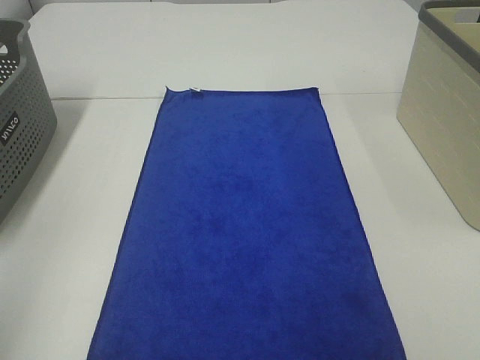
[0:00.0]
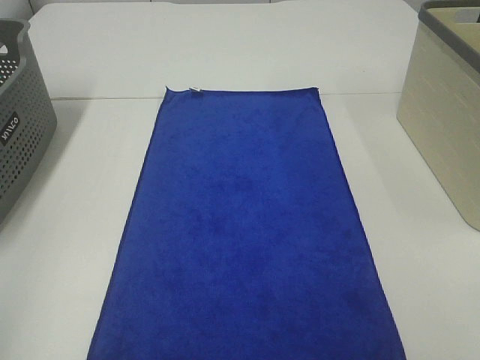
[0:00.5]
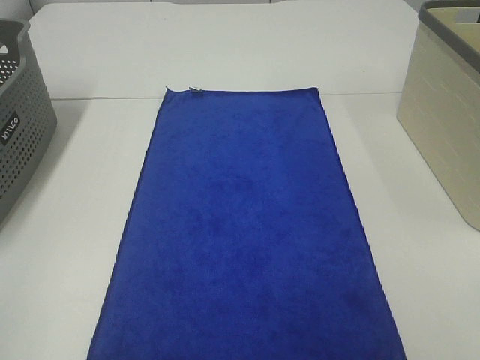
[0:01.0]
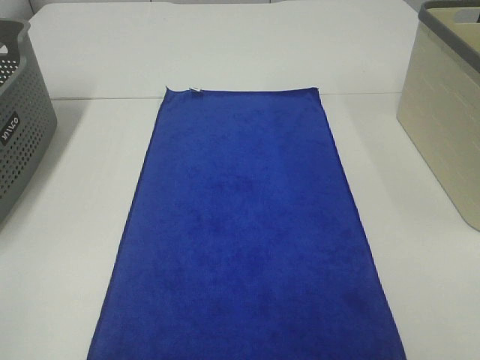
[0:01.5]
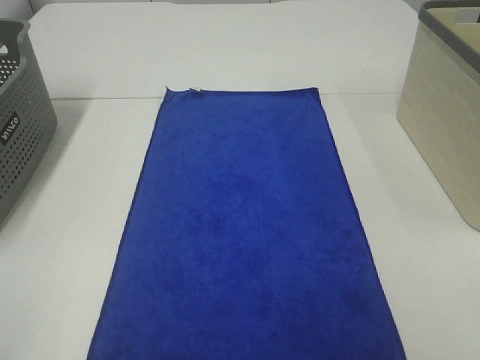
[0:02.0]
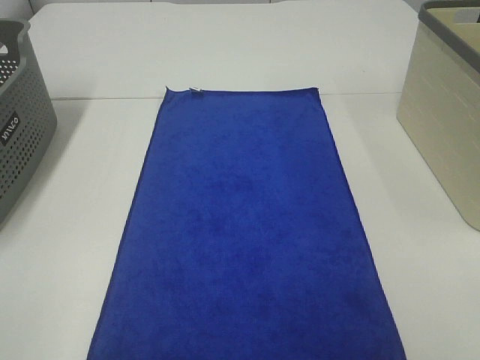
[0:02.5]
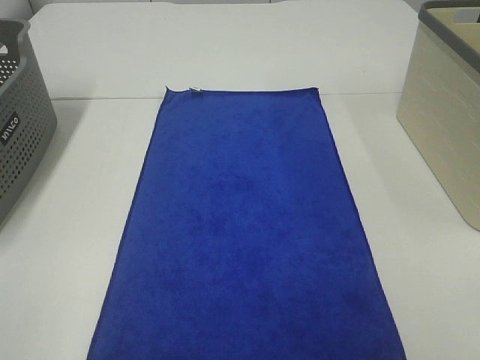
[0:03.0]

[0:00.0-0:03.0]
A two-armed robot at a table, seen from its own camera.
Task of the whole recording: Remove the towel and place it.
0:00.0 to 0:01.5: The left gripper goes some 10 cm backward and downward.

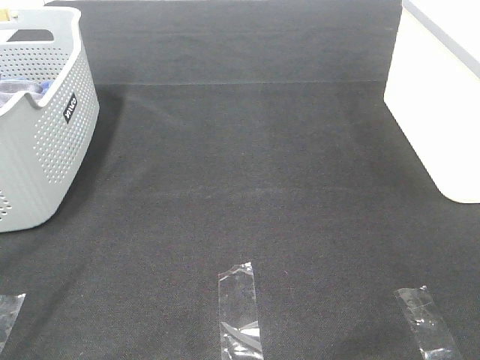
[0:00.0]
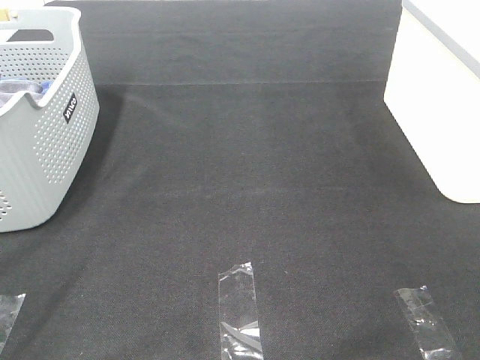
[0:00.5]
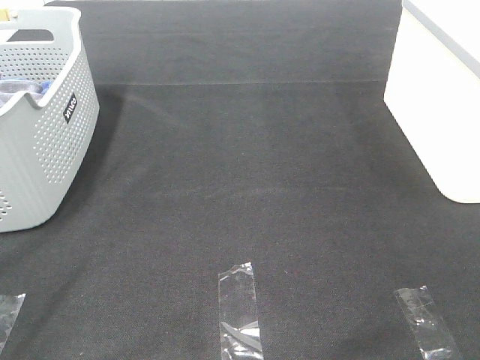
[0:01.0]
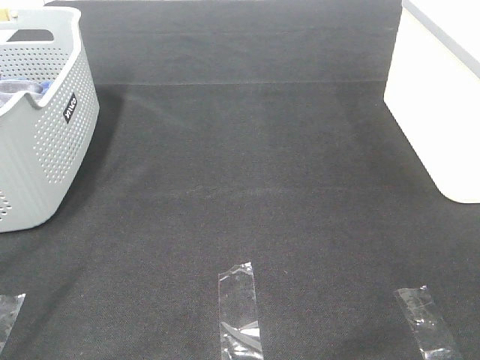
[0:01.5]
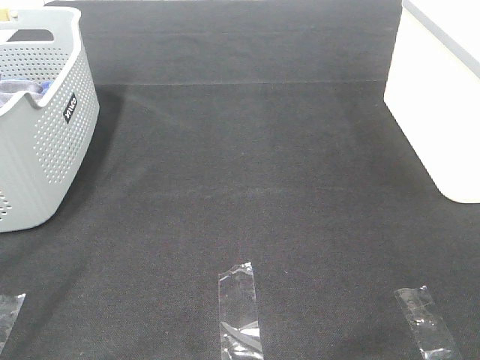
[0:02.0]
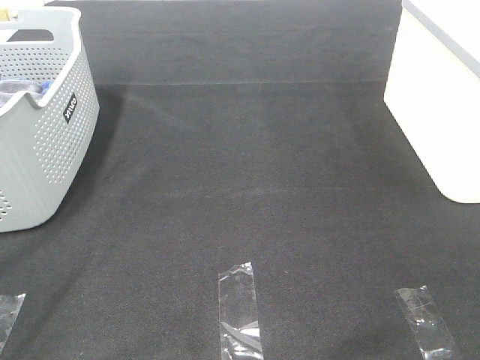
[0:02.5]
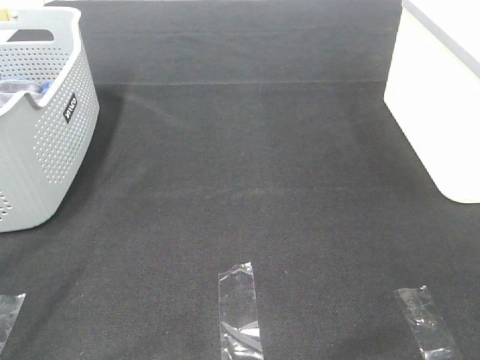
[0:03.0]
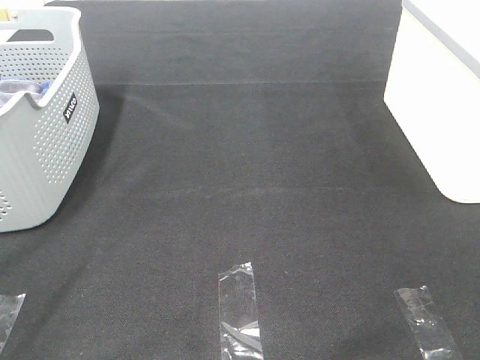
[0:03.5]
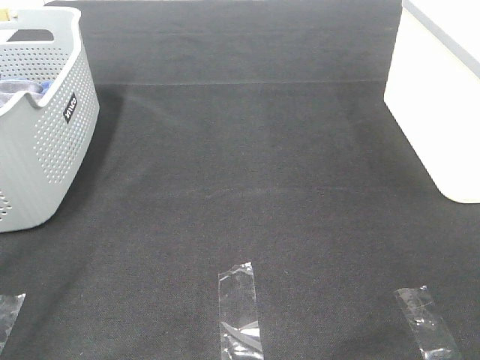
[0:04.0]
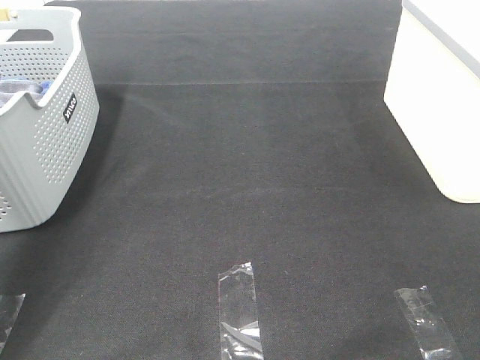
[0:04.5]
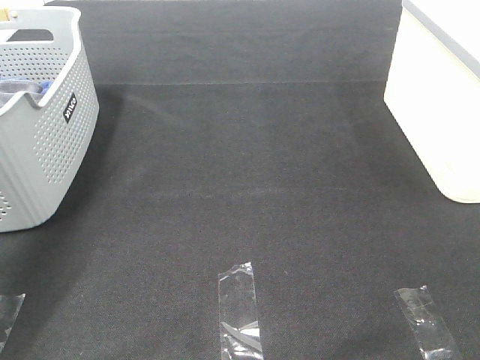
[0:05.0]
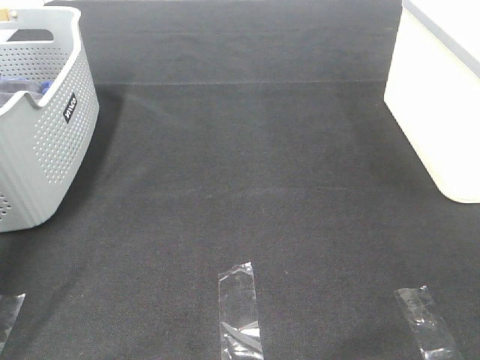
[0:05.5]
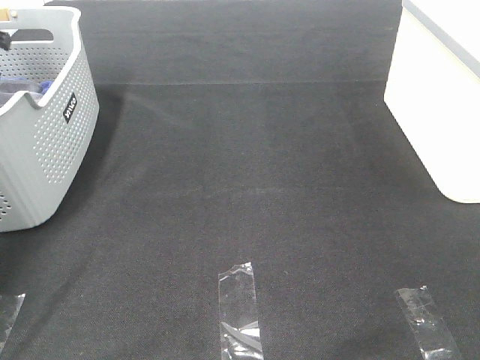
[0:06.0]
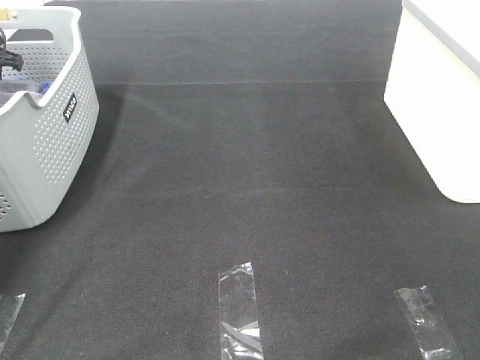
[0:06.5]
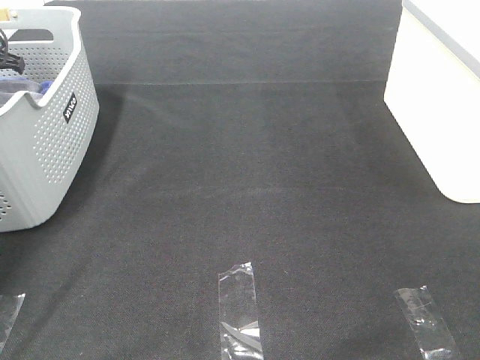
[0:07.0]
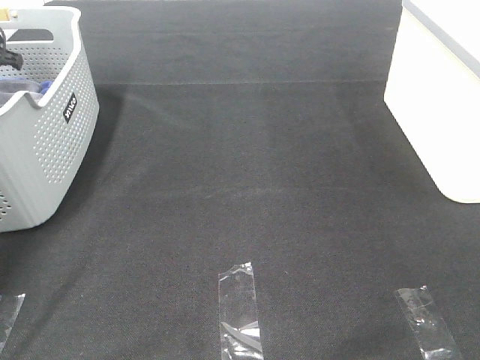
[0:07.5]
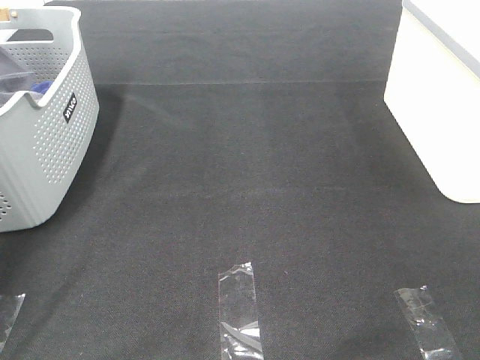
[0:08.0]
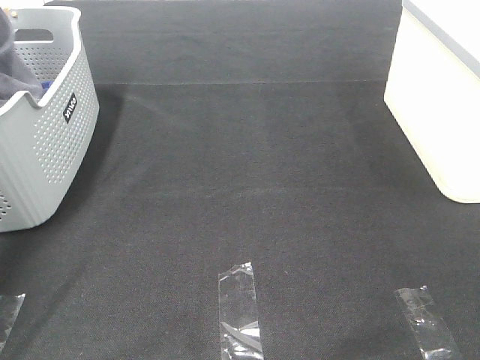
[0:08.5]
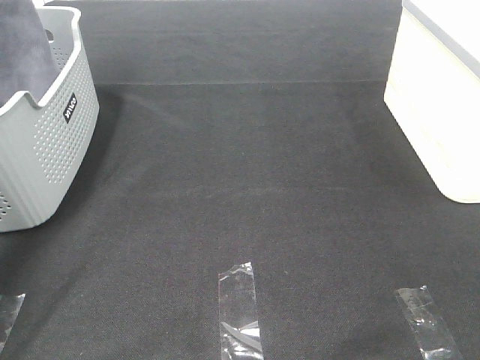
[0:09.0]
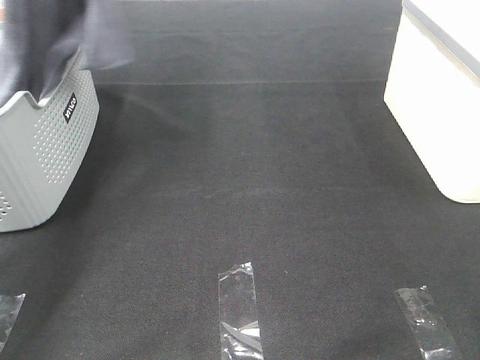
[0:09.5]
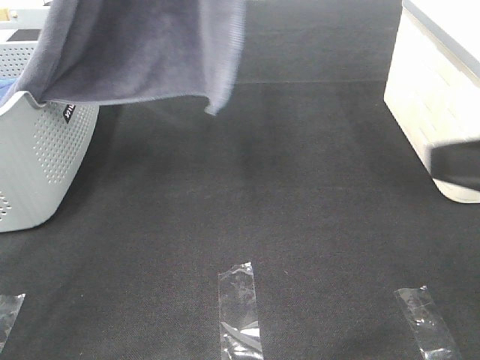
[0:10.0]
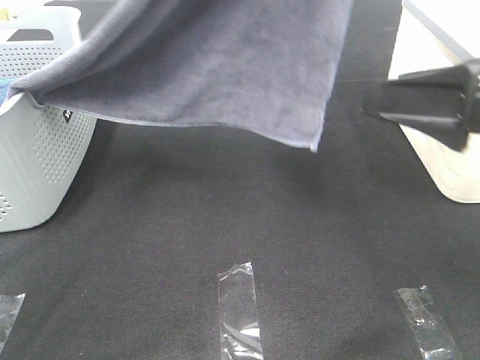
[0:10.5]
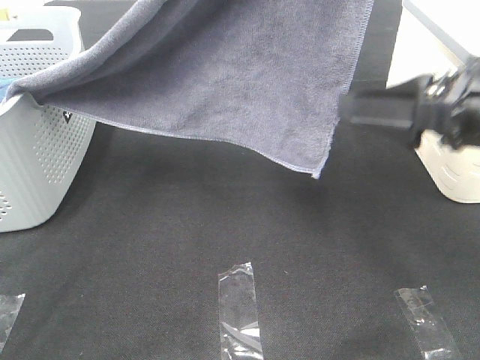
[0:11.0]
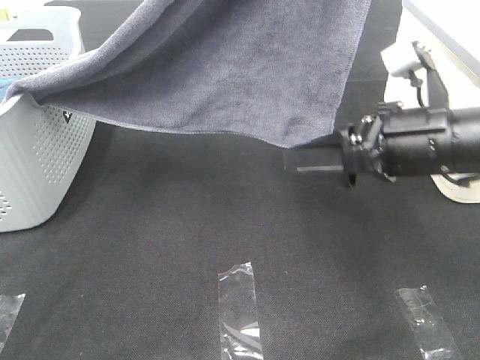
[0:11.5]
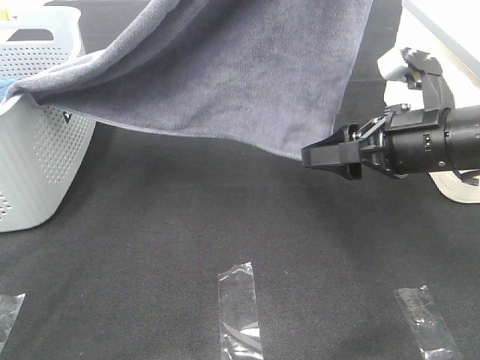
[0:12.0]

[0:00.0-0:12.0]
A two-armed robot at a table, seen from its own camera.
Task of the whole recording: Remove the towel and place it.
Step, 0:08.5 to 0:11.5: Right hand: grab a corner of the grey towel and straighten it.
0:00.0 to 0:02.0: Both grippers stay about where they are.
0:04.0 to 0:06.0: The left gripper shifts some 50 cm forward.
0:08.0 to 0:10.0: The left gripper moves to the right, upward and backward, some 40 cm. The right gripper goes some 15 cm forward.
0:10.0 to 0:12.0: The left gripper is displaced to the right by approximately 10 cm. The right gripper heads forward and downward, covering about 20 cm.

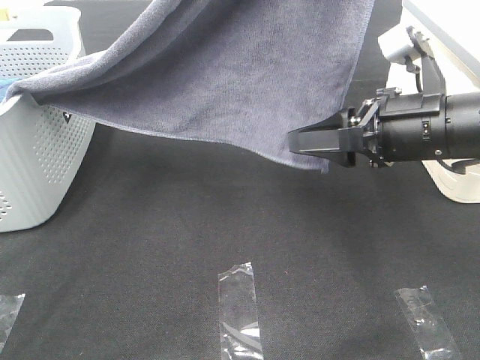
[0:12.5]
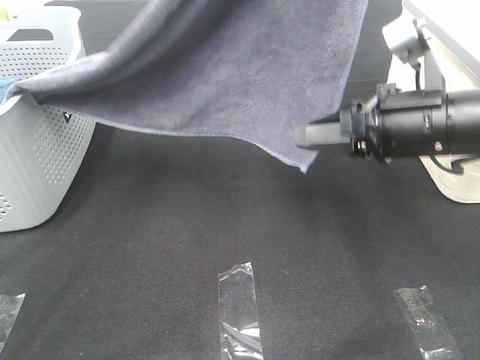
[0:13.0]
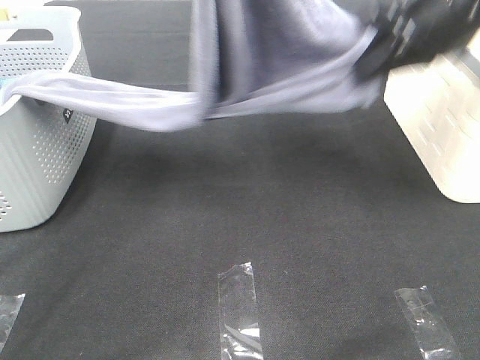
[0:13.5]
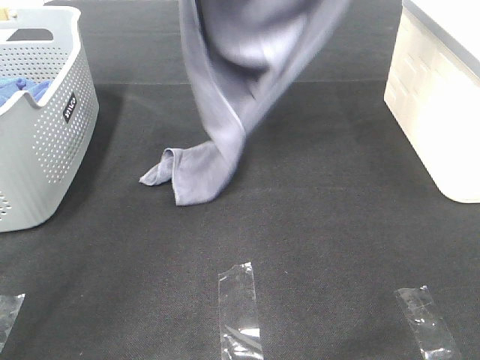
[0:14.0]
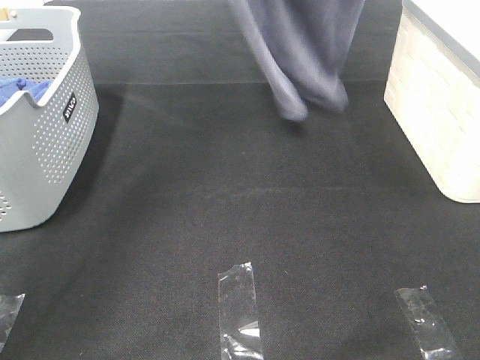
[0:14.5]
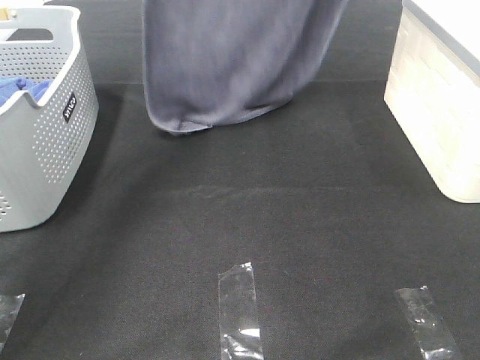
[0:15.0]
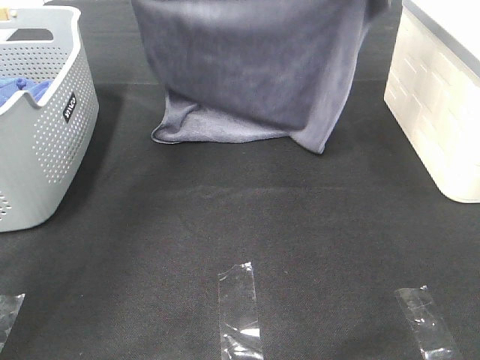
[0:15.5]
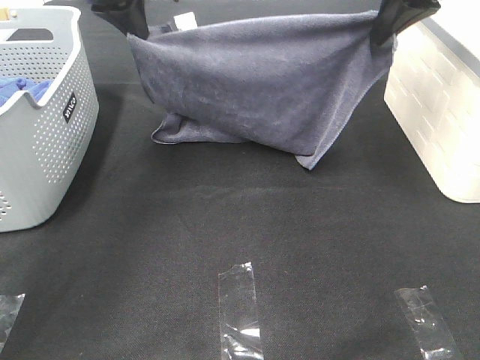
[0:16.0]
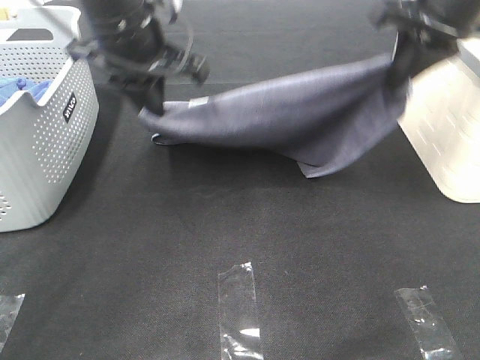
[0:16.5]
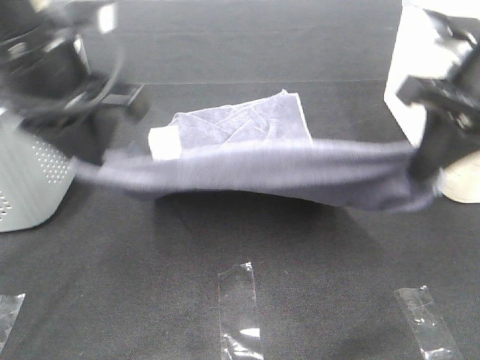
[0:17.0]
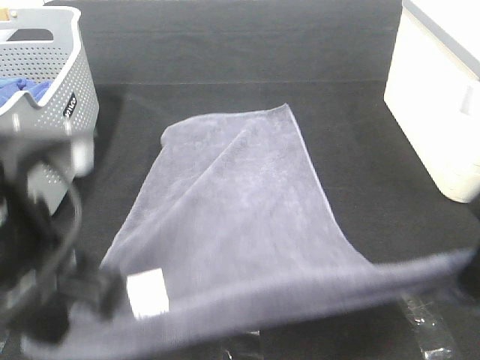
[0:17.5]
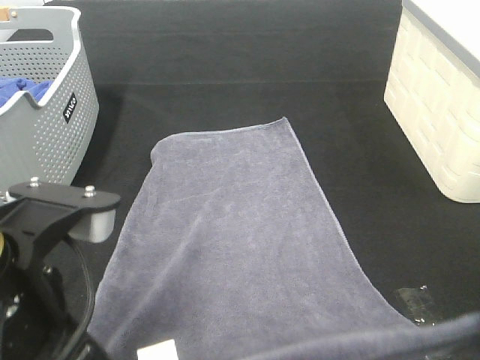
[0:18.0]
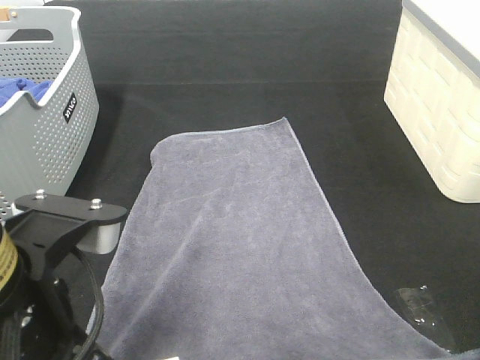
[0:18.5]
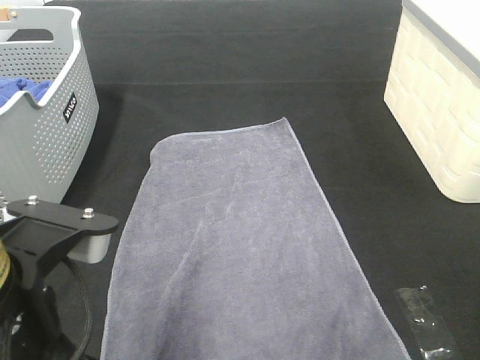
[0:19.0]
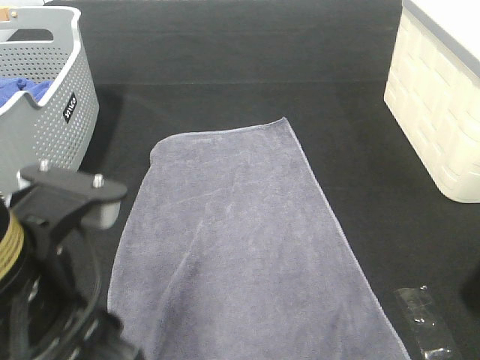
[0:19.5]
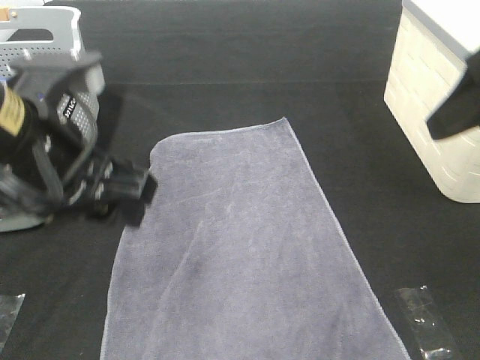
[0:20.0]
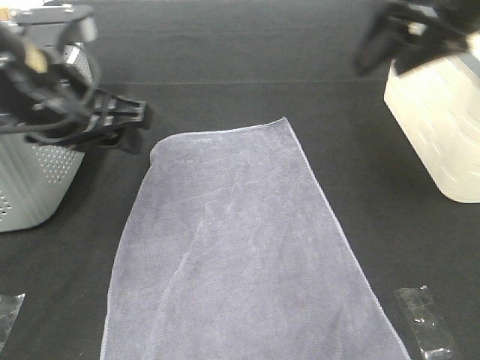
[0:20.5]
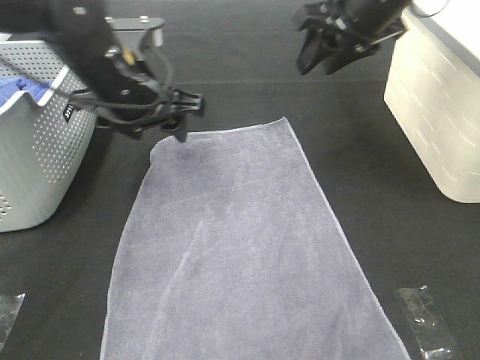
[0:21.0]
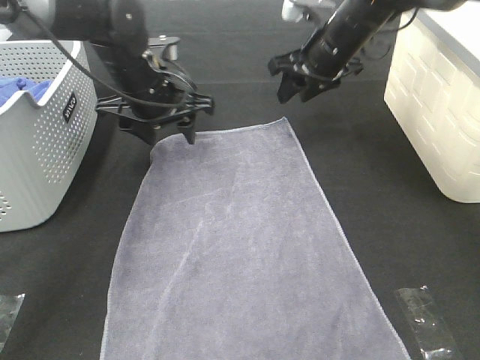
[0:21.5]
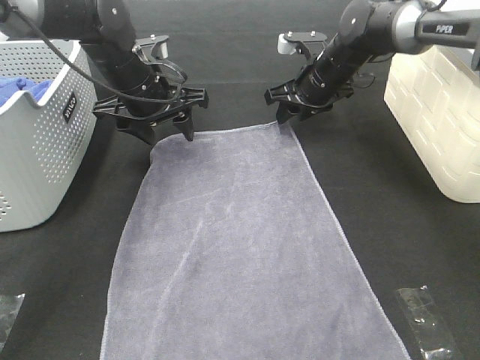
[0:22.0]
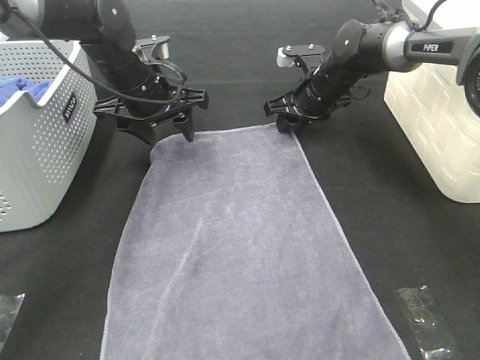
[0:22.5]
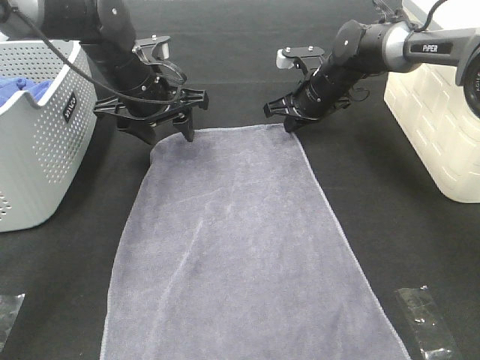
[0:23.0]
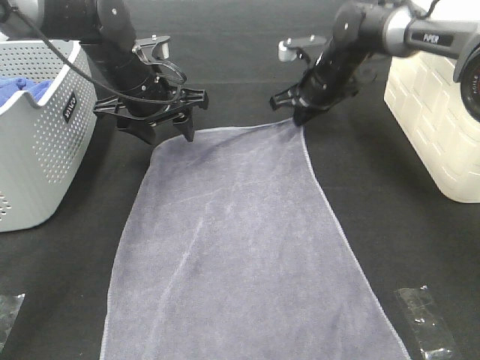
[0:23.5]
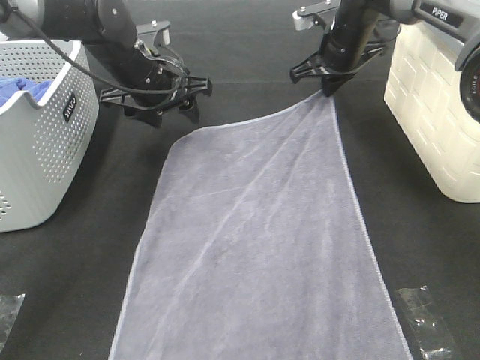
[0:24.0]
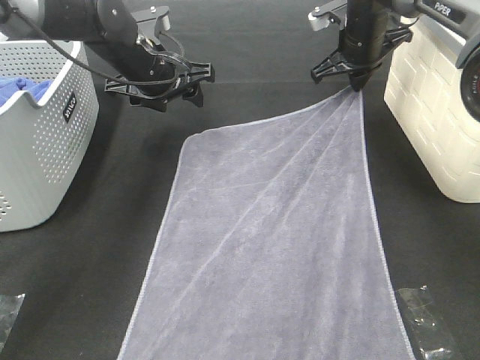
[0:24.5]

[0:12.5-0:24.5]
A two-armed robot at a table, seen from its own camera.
Task of the whole recording: Remove the towel and place it.
Step, 0:12.5 to 0:15.0: Left hand: spread the grey towel flat on the table.
Step, 0:12.5 to 0:15.0: Right hand: spread the grey towel flat on the table.
Step, 0:15.5 to 0:23.0: Right hand:adjust the gray towel.
Step, 0:15.5 to 0:23.5: Left hand:adjust the gray towel.
0:12.5 to 0:14.5: The right gripper shifts roughly 35 cm upward and forward, and closes its fingers, while the left gripper moves forward and to the left, roughly 20 cm.
0:14.5 to 0:16.5: The left gripper moves downward and backward, some 20 cm. Meanwhile the right gripper moves downward, roughly 20 cm.
0:16.5 to 0:18.5: Both grippers move backward, some 25 cm.
0:18.5 to 0:20.5: The right gripper heads forward and upward, covering roughly 25 cm, and opens up. The left gripper heads forward, covering approximately 20 cm, and opens its fingers.
0:20.5 to 0:22.5: The right gripper travels downward and forward by roughly 30 cm, while the left gripper shifts some 15 cm forward and downward.
0:22.5 to 0:24.5: The right gripper travels upward by about 10 cm, and closes up.
